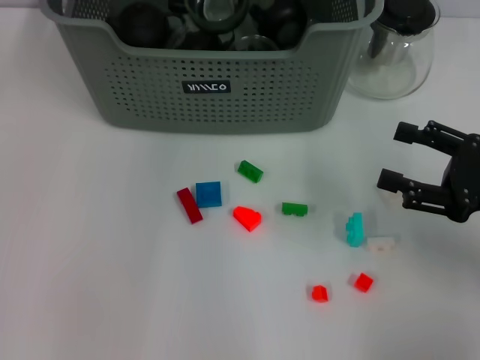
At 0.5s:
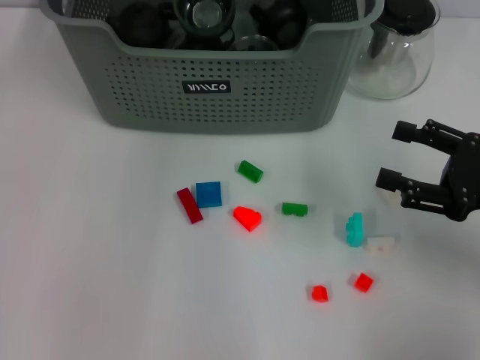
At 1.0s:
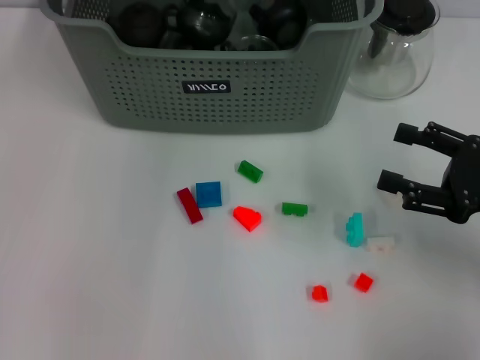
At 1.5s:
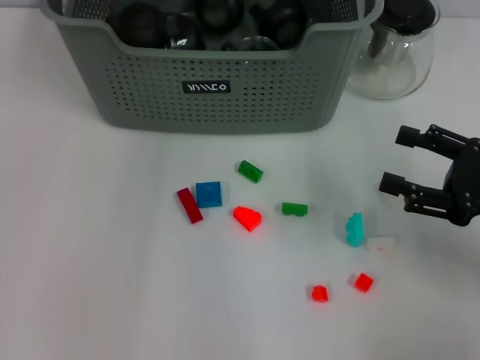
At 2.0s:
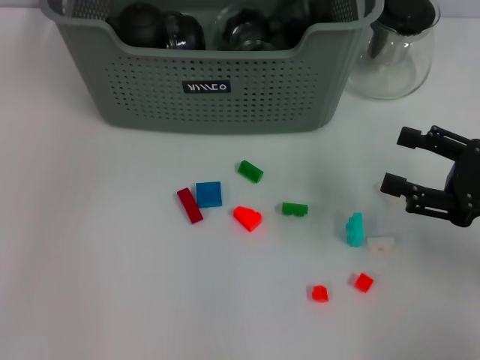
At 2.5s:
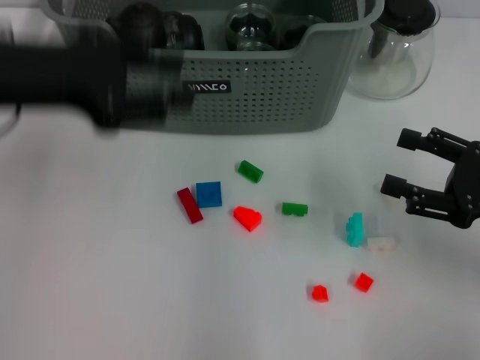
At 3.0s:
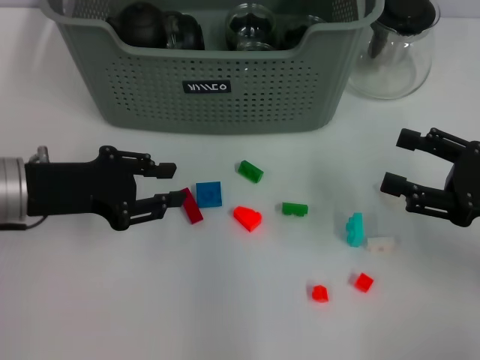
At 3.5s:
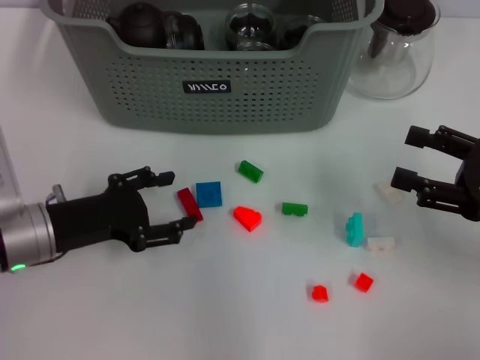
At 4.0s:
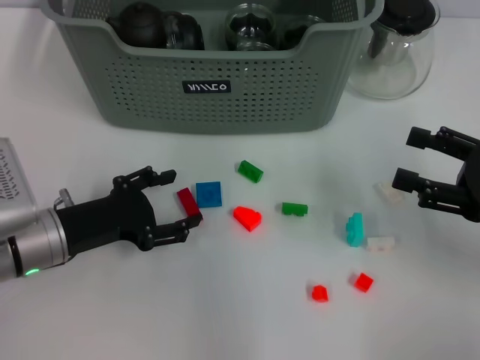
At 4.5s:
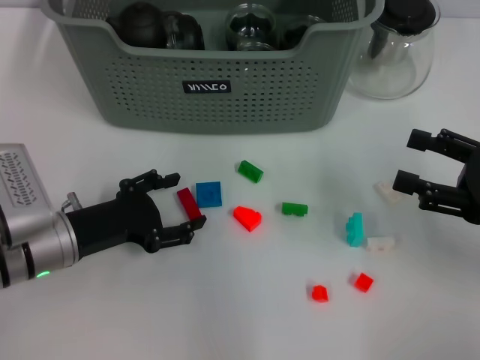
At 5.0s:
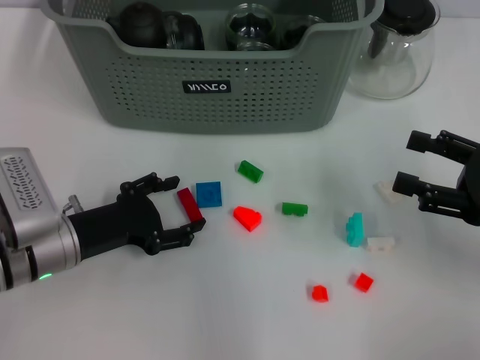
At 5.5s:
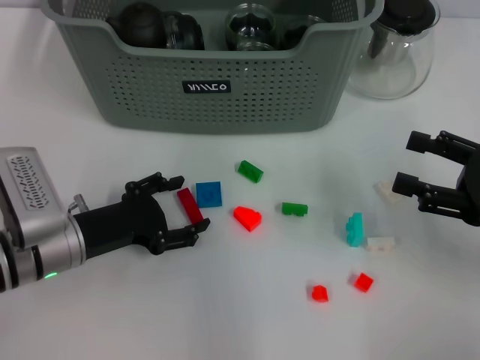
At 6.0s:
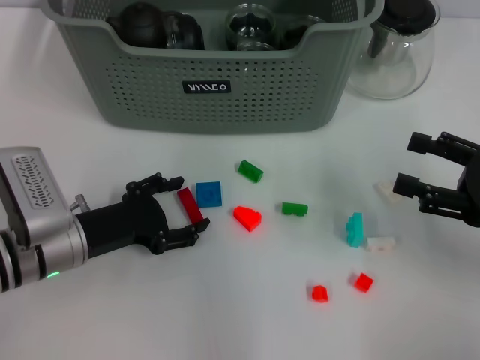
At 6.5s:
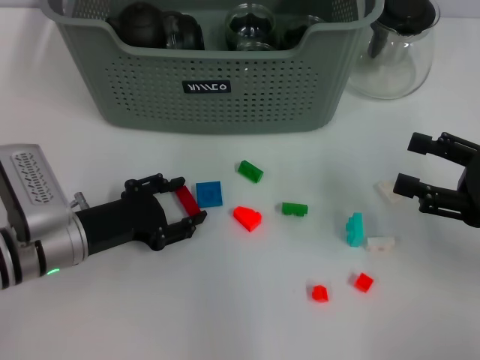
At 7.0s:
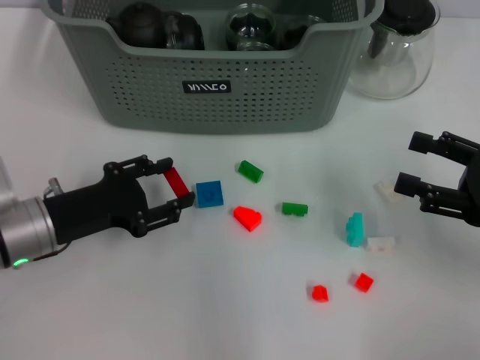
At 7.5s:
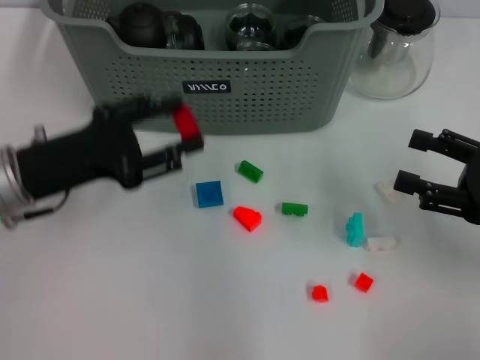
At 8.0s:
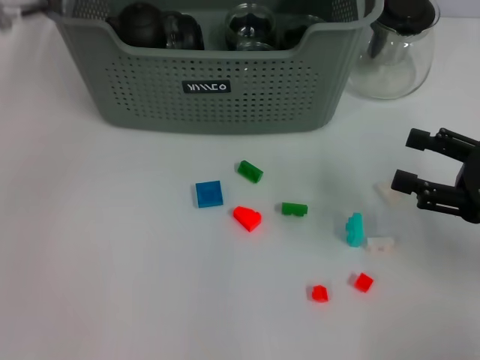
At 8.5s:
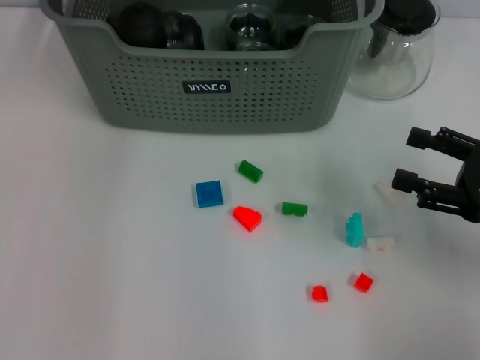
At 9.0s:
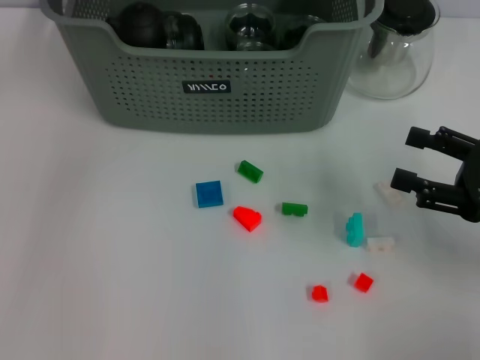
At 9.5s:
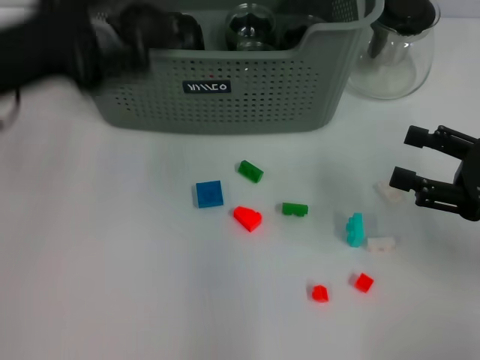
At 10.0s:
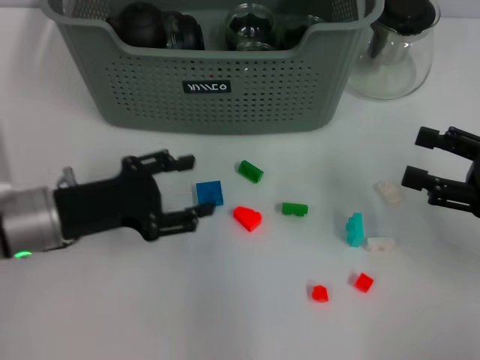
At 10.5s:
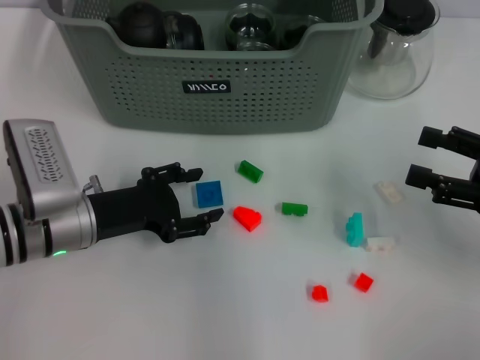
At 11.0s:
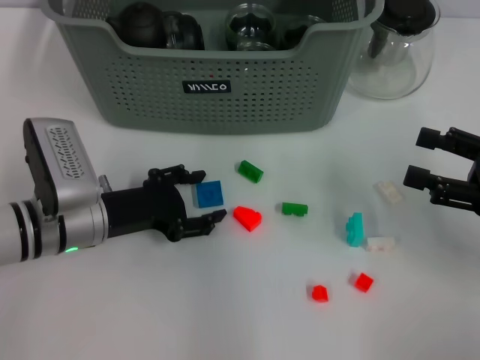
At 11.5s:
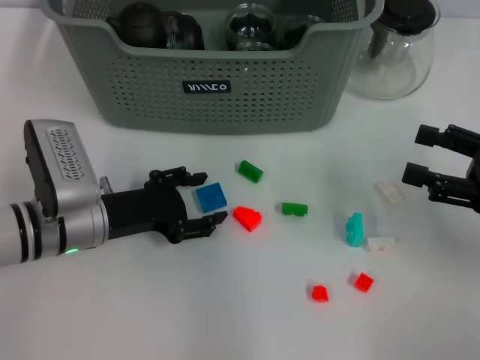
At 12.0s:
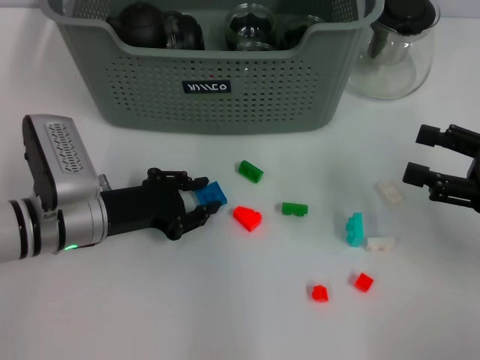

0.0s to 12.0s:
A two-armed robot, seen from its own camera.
Task of the whole recording: pick up the teacup on the table and place it into the storage bin, pick up the block on the table and place it into the storage bin.
Step, 1.5s to 6.5s: Grasp the red block with left gripper.
Step, 7.0s to 8.5s: Place the red block in the storage box with left gripper.
Step, 9.0s to 12.0s: Grasp the dark blue block with left gripper.
0.0s to 2.0s: The left gripper moves backward, upward and to the left, some 15 cm.
2.0s to 4.0s: The left gripper moves downward and backward, roughly 30 cm, and opens its fingers.
4.0s to 6.0s: The grippers stay close to where they were, moving slightly.
6.0s to 8.0s: The left gripper travels upward and forward by approximately 25 cm.
8.0s to 10.0s: The left gripper moves downward and backward, some 20 cm.
10.0s to 12.0s: The left gripper shifts by approximately 5 cm.

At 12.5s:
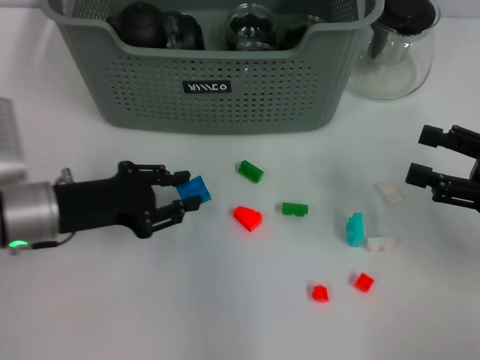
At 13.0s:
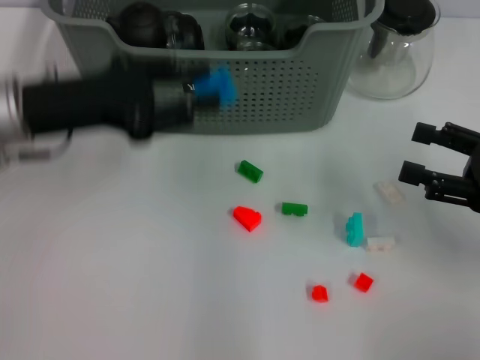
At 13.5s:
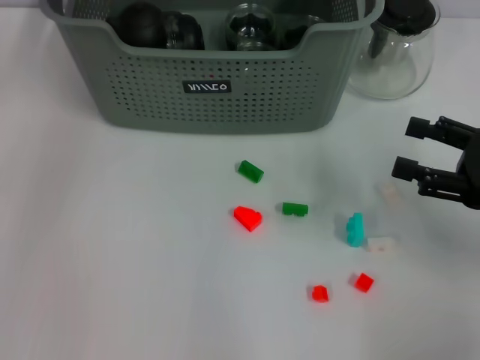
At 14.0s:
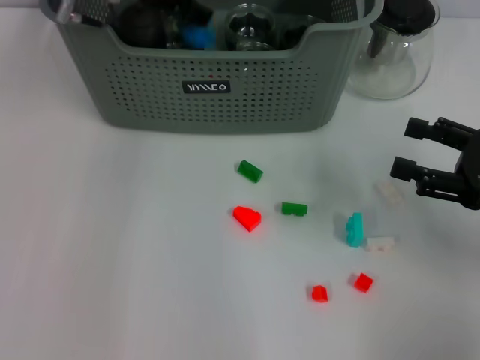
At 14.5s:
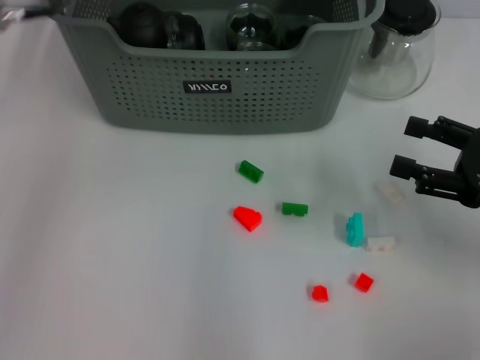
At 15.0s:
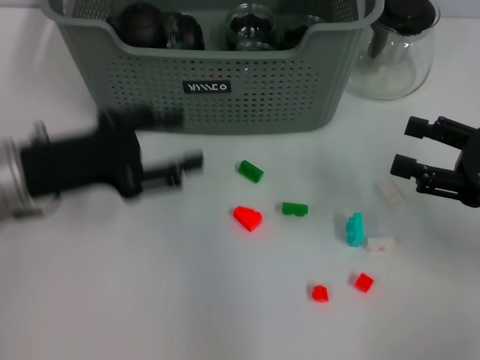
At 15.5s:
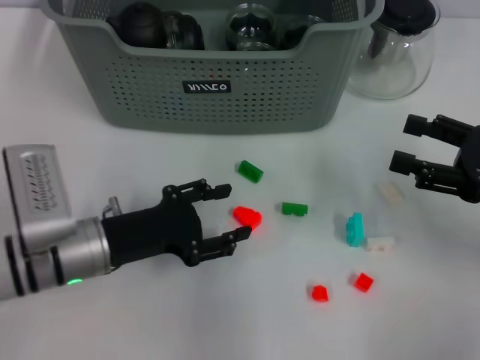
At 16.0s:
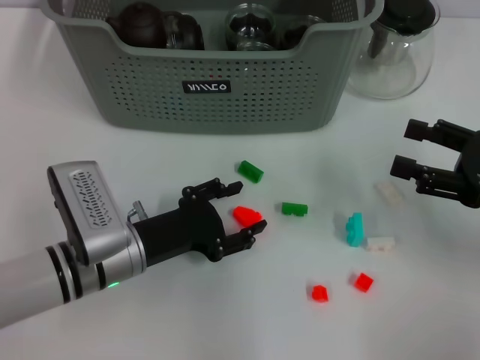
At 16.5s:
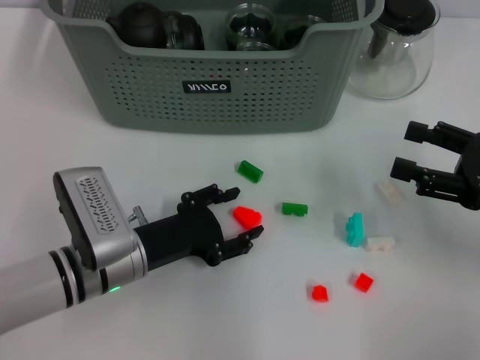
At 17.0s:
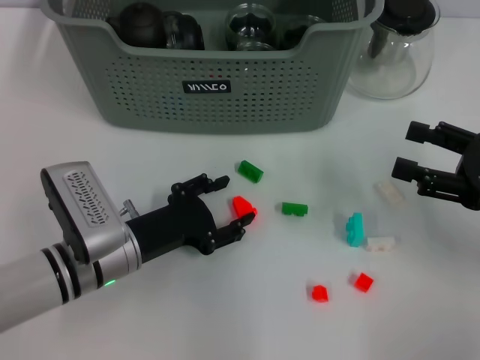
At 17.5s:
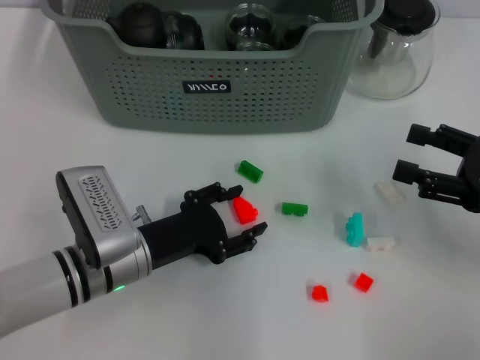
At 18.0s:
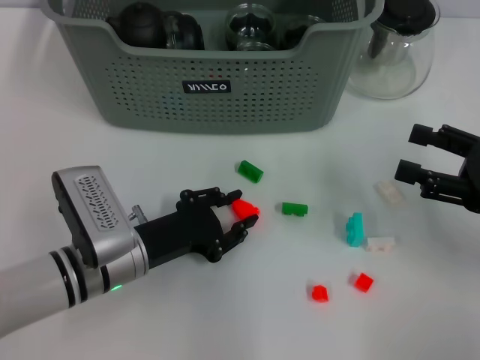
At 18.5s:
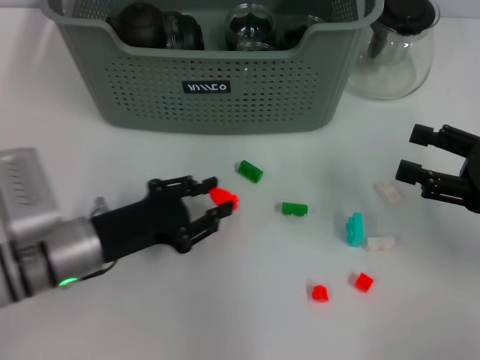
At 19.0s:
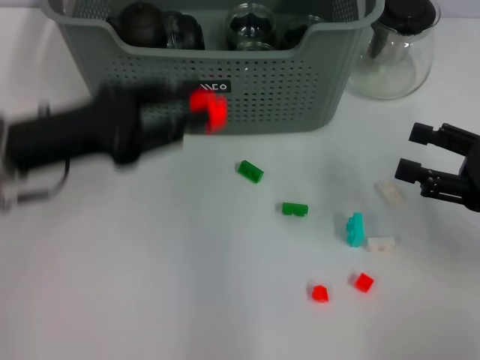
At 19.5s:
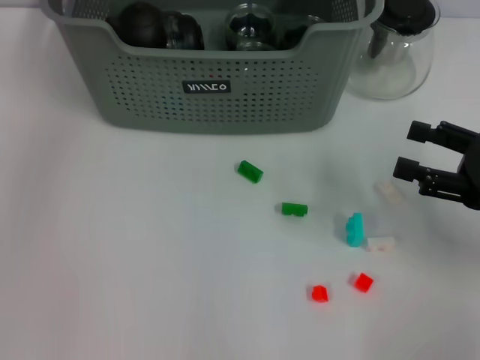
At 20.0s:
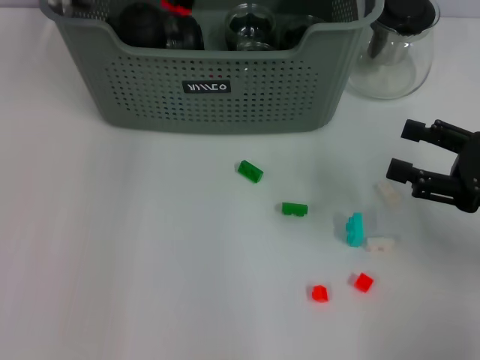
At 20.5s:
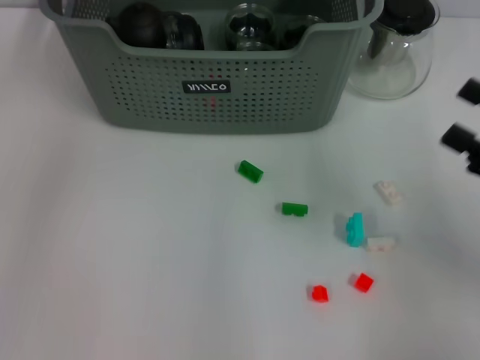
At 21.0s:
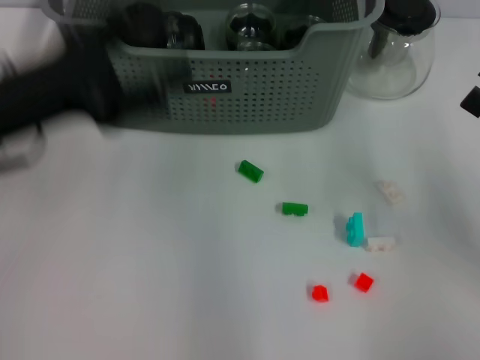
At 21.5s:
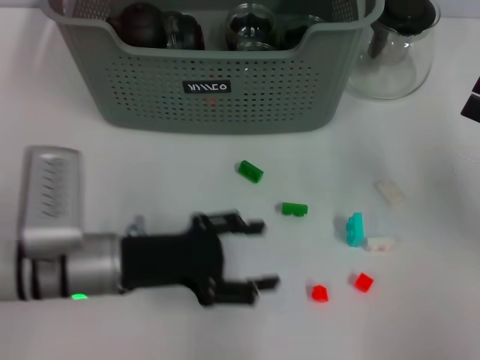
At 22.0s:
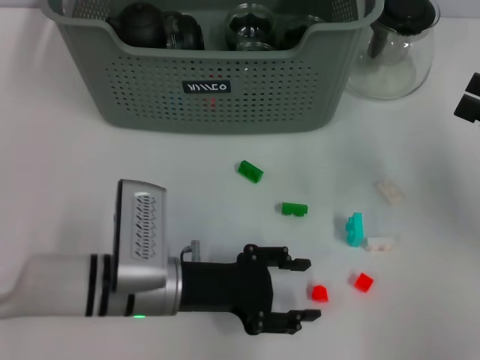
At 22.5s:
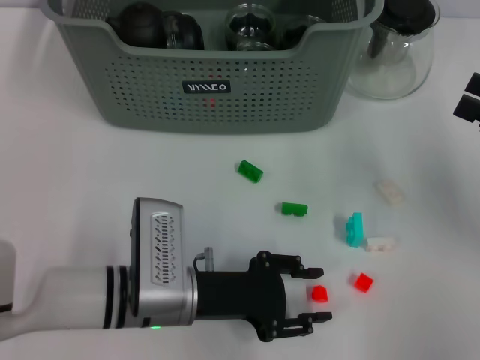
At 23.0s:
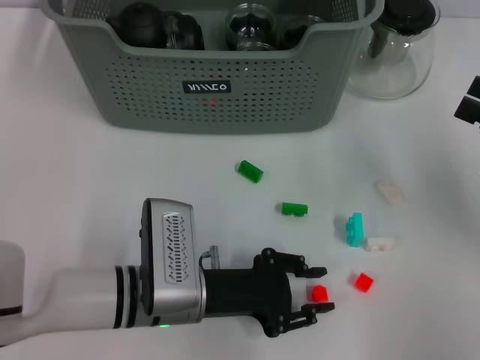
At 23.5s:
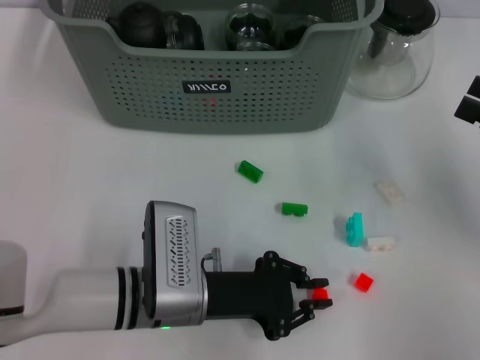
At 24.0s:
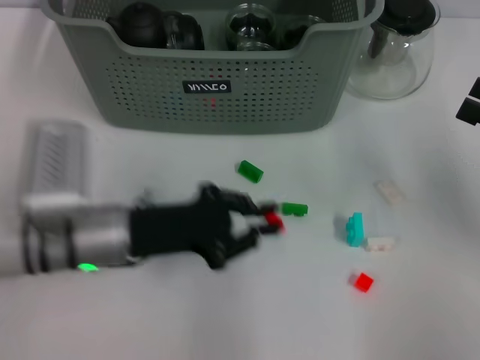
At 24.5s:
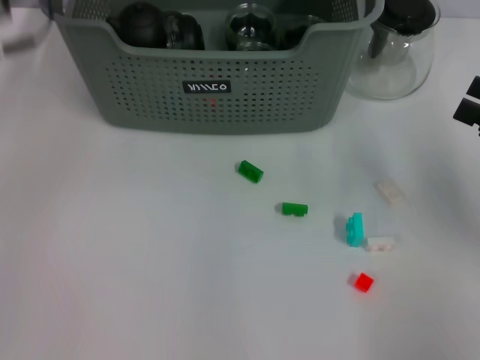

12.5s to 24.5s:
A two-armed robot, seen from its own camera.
Task of the whole recording: pick up the teacup on the table and place it into the storage bin, pick up the block on the table and place it into the storage bin.
Step, 12.5s to 14.0s: Place the dark blue block in the storage box with left gripper.
Step, 14.5s to 18.0s: Grasp the orange block with left gripper.
Step, 18.5s to 20.0s: Place the orange block in the storage box with left gripper.
Step, 20.5s to 23.0s: Grasp the orange block with left gripper.
12.5s to 14.5s: The left gripper moves up and down over some 20 cm, changing direction 2 times.
14.5s to 16.5s: The left gripper heads downward and backward, covering some 30 cm.
16.5s to 18.5s: The grippers move only a little.
18.5s to 20.5s: The left gripper goes up and down, about 25 cm each way, reversing 2 times.
20.5s to 22.5s: The left gripper heads downward and backward, covering roughly 30 cm.
22.5s to 24.5s: The left gripper travels upward, forward and to the left by approximately 30 cm, and closes.

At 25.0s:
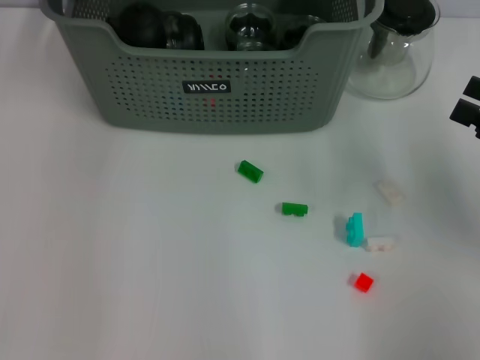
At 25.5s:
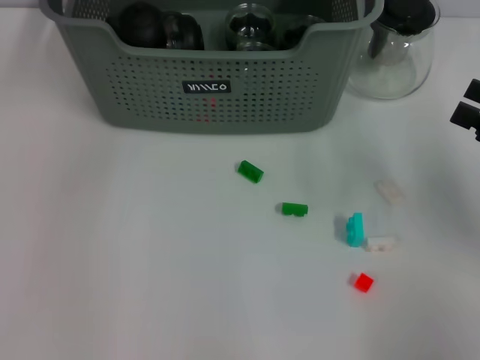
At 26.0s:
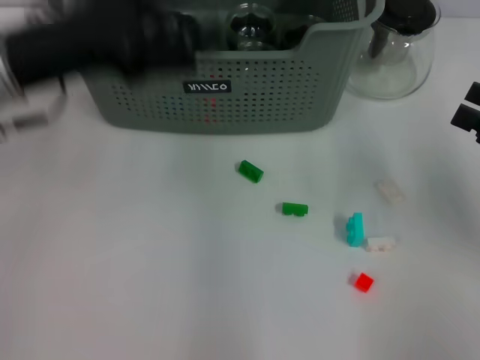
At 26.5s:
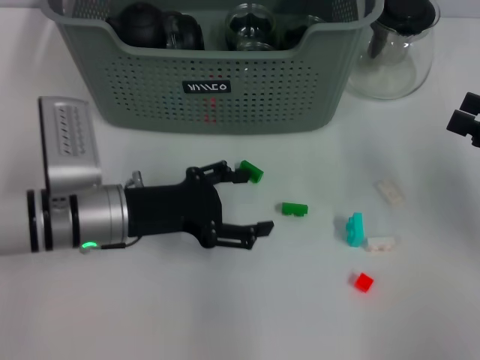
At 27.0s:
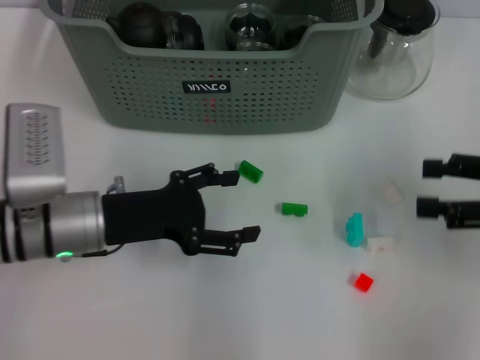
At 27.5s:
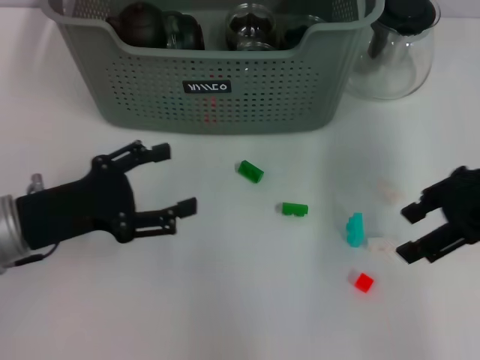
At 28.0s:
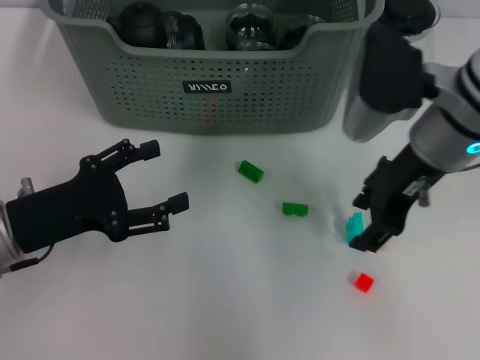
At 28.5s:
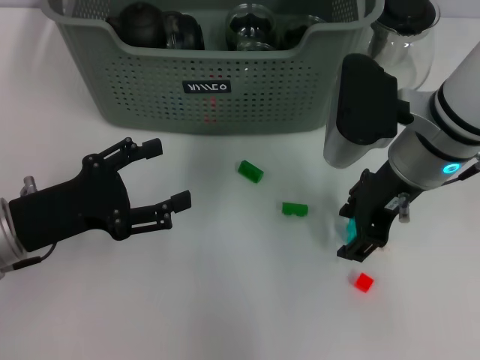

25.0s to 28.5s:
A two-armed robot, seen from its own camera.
Task of the whole recording: pick up the teacup on the table and place it into the storage bin, pick up the block on the table and place it into the storage bin.
25.0s to 27.0s: The left gripper is displaced backward and downward by some 25 cm, and opens up.
27.0s to 28.5s: The right gripper goes some 20 cm to the left. The left gripper shifts about 5 cm to the left.
